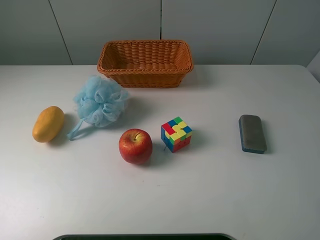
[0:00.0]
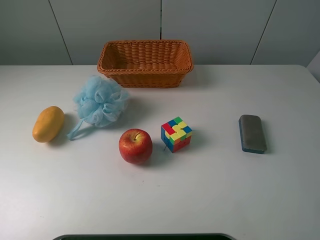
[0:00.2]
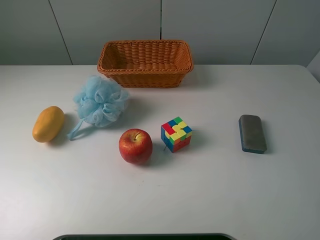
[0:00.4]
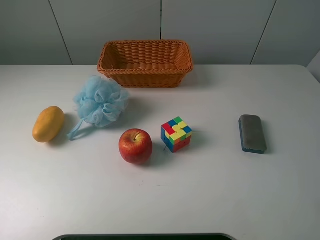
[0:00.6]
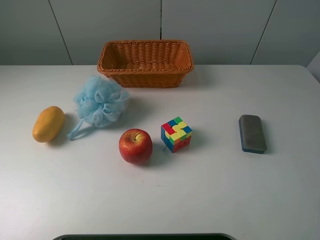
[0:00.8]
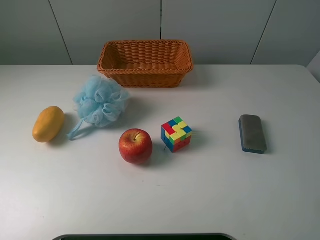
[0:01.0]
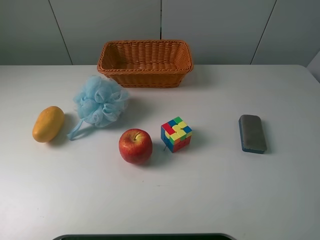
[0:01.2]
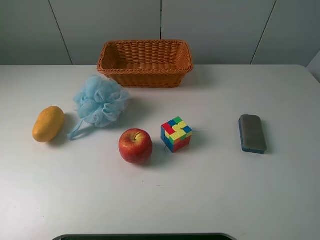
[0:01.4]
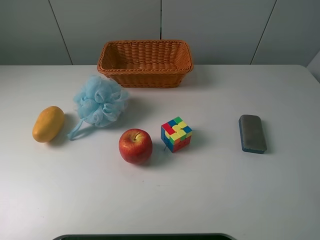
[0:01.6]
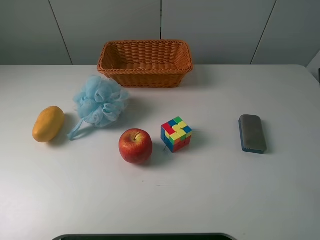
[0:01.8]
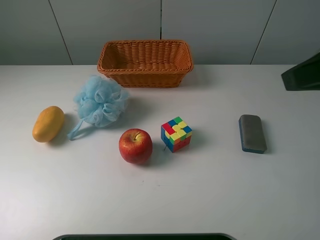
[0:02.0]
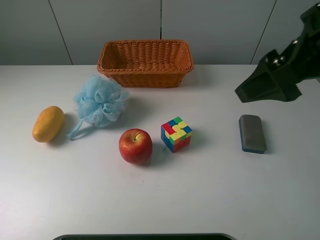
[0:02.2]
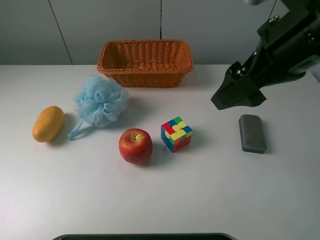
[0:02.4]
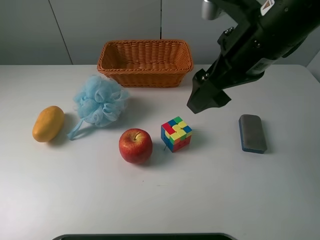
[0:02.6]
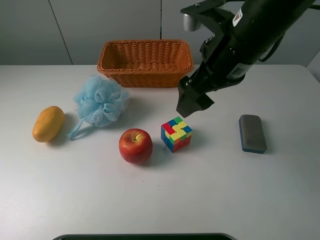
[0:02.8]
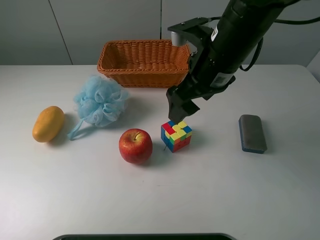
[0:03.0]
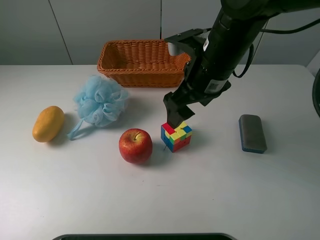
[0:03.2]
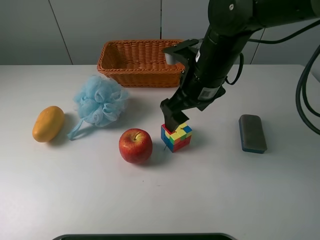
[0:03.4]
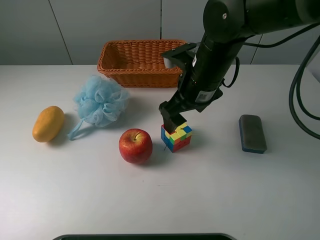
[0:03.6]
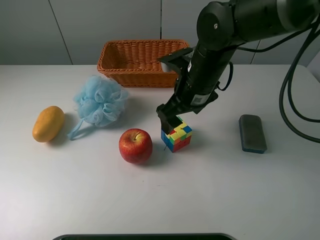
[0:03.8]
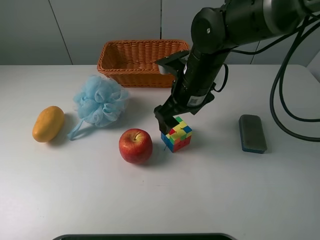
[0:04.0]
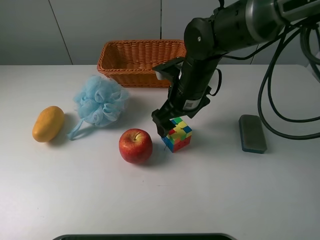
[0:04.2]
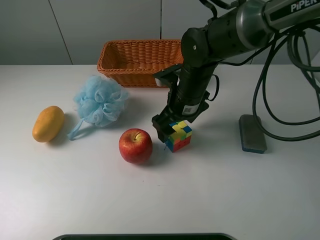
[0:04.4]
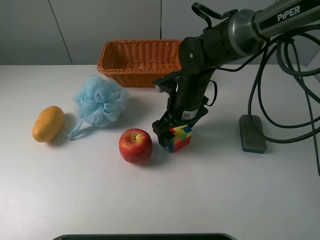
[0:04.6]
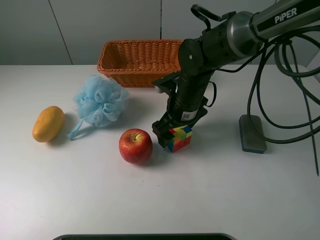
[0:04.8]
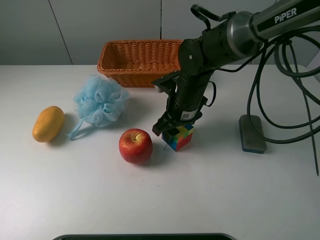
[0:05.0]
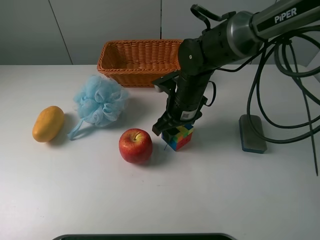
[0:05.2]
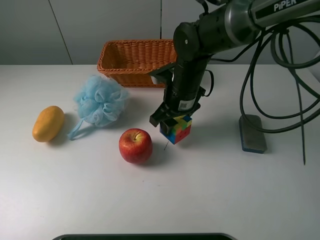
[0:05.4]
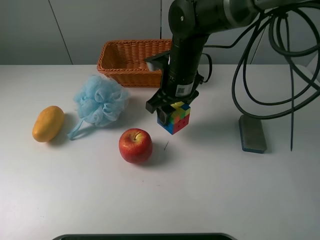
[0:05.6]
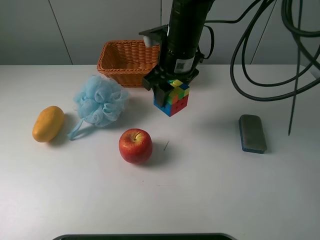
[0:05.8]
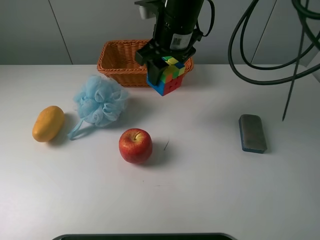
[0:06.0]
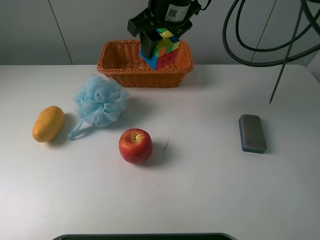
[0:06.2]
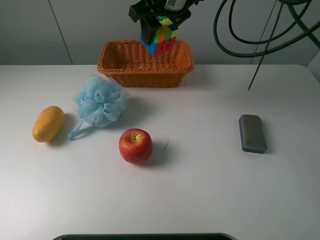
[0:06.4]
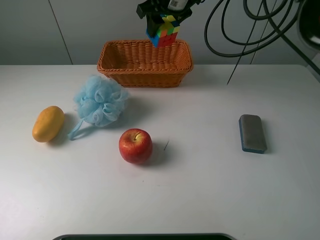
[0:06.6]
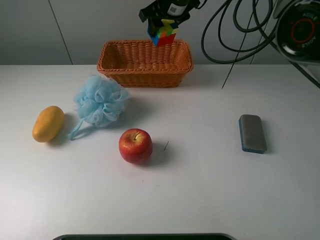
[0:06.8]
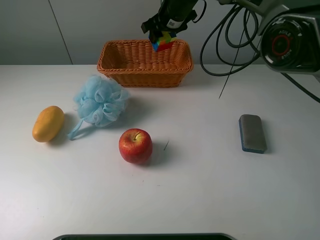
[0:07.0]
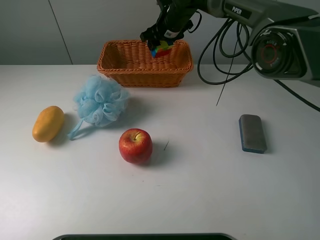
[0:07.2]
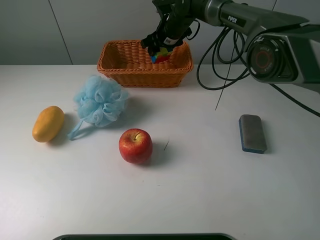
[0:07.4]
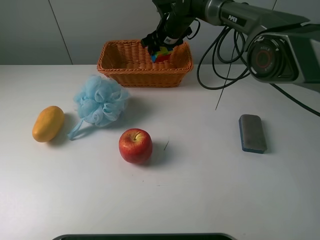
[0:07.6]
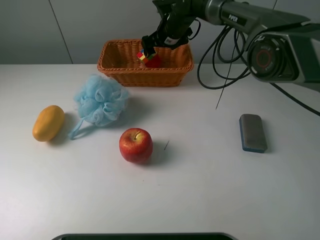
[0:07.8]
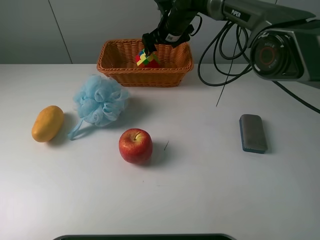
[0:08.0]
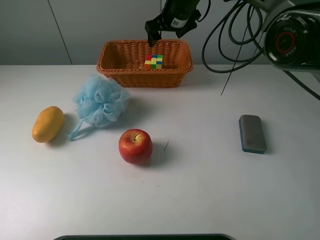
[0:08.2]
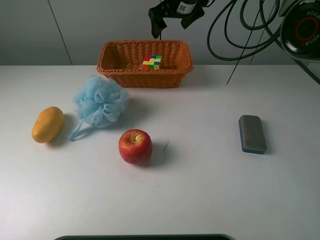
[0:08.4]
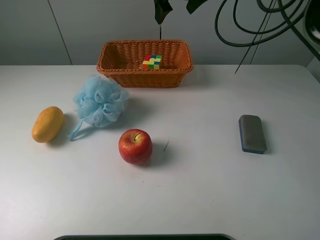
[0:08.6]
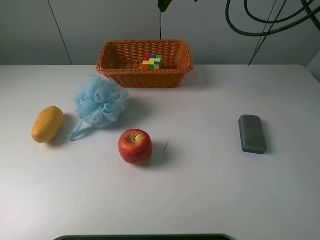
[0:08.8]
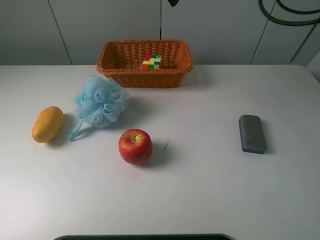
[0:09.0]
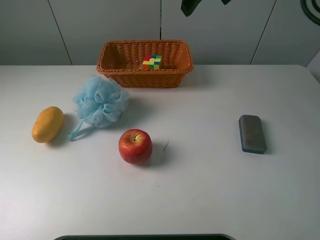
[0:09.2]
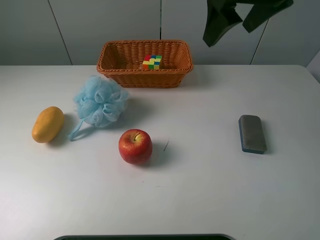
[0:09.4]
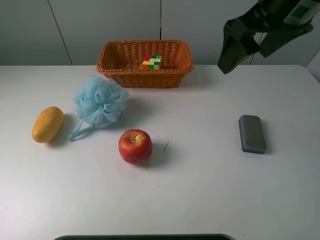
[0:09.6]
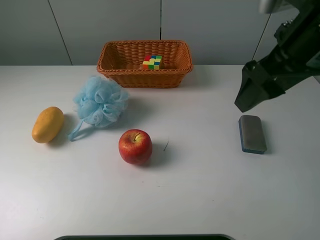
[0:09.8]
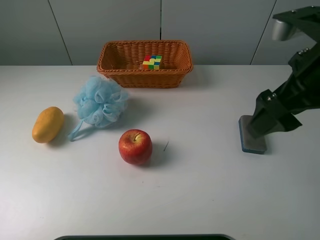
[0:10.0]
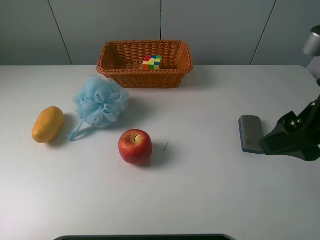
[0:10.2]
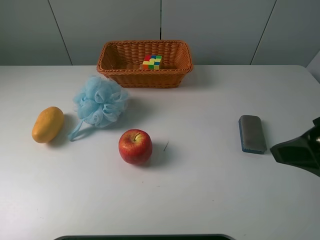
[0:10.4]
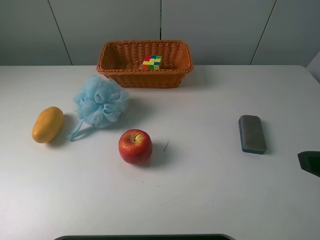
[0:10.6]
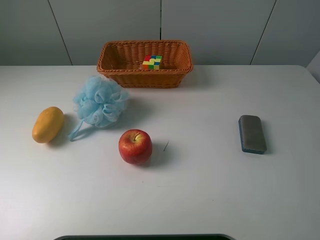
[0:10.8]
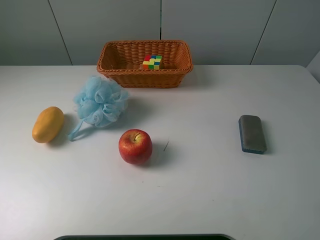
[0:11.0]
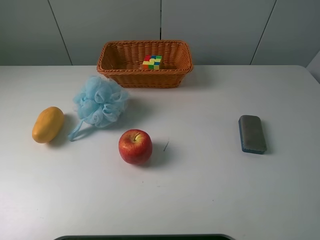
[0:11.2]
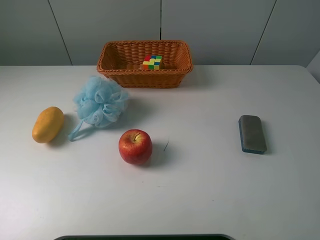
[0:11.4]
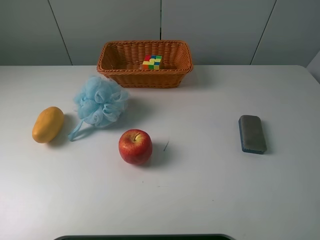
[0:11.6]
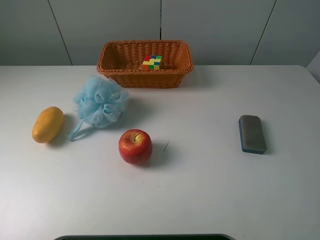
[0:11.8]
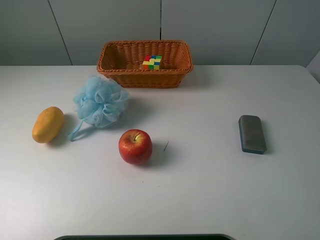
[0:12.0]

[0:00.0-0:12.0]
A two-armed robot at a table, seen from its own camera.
Task of the whole recording: use a picker to grab the item closest to the apple and place it in the basket.
Step, 0:00.0 to 0:05.2: Grasp the Rubik's Cube with the right gripper.
Step, 0:05.4 to 0:08.2: Place the Rubik's Cube into the basket with the right gripper.
0:01.6 to 0:03.0: The right gripper is displaced forward, to the left and downward by some 30 cm.
0:03.0 to 0:04.4: The right gripper moves downward, approximately 10 cm.
0:04.4 to 0:06.0: The right gripper heads upward, covering roughly 15 cm, and closes up.
0:06.0 to 0:07.6: The right gripper shifts roughly 20 cm forward and downward.
0:07.6 to 0:09.0: The right gripper is displaced upward and backward by about 25 cm, and opens.
0:09.0 to 0:10.4: The right gripper travels backward and to the right by approximately 30 cm.
0:10.4 to 0:12.0: The right gripper goes approximately 10 cm backward.
